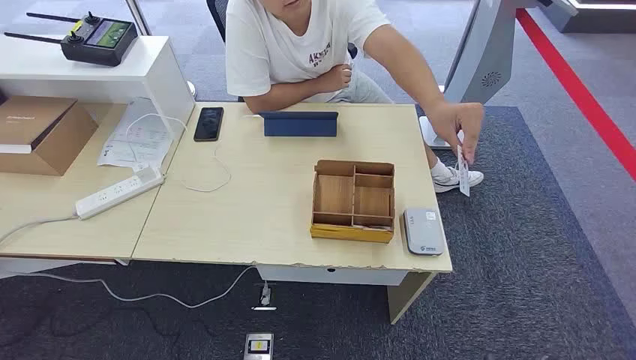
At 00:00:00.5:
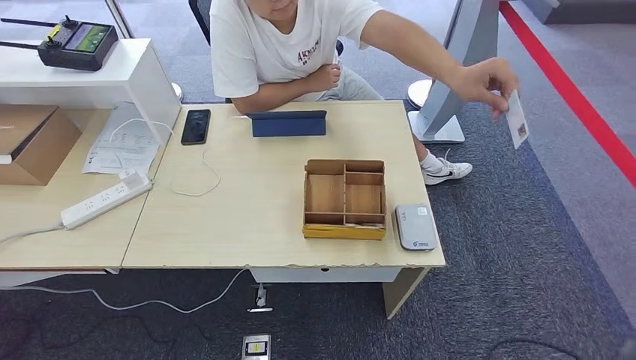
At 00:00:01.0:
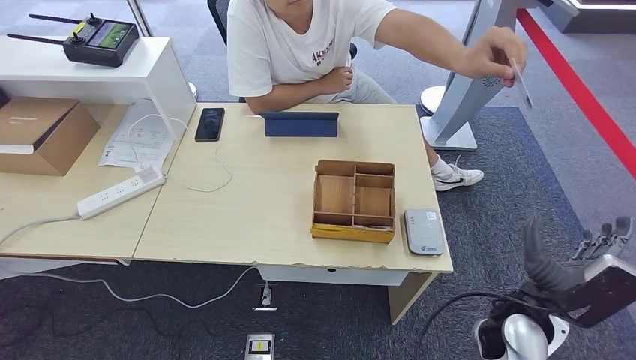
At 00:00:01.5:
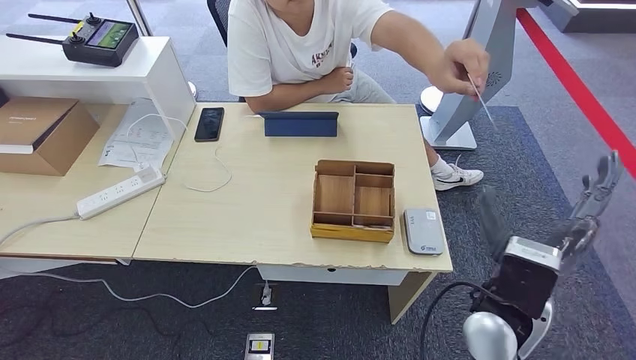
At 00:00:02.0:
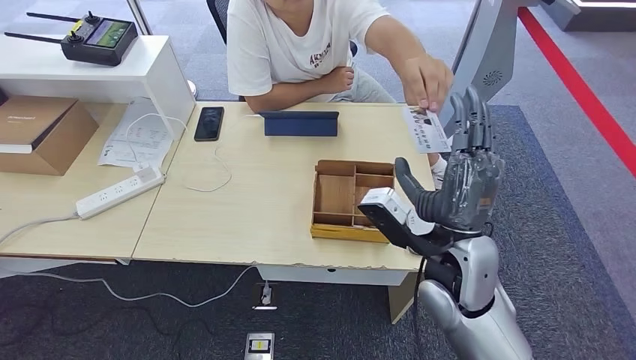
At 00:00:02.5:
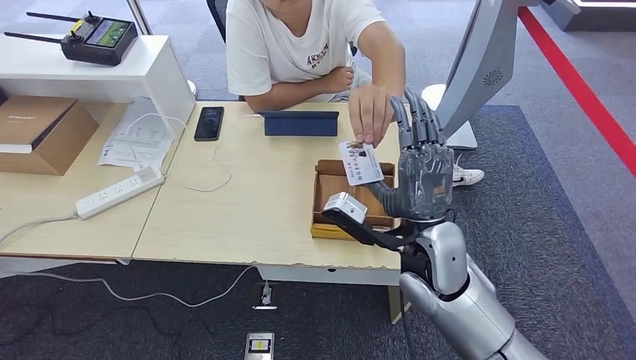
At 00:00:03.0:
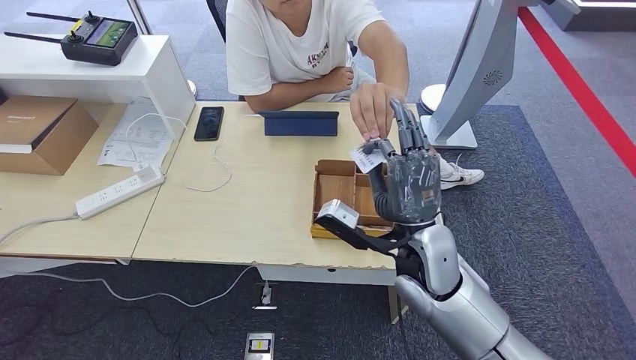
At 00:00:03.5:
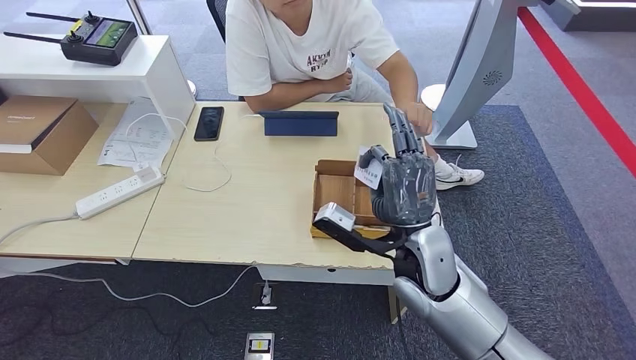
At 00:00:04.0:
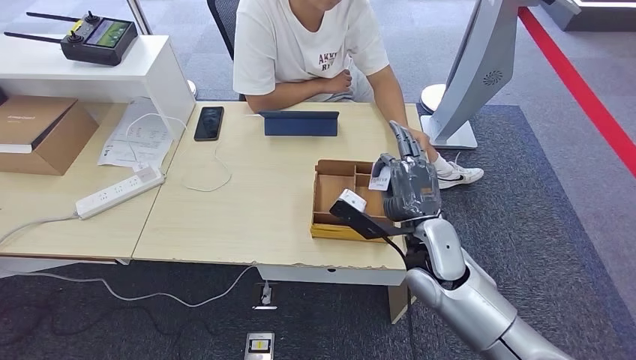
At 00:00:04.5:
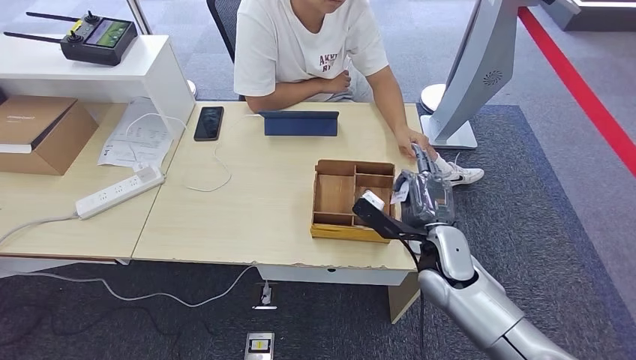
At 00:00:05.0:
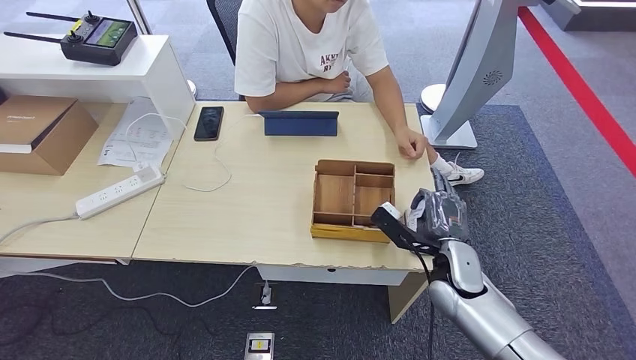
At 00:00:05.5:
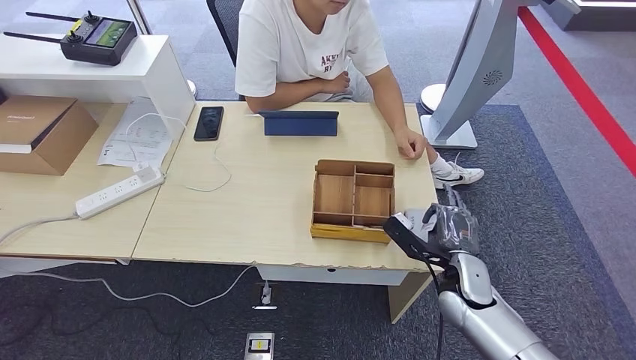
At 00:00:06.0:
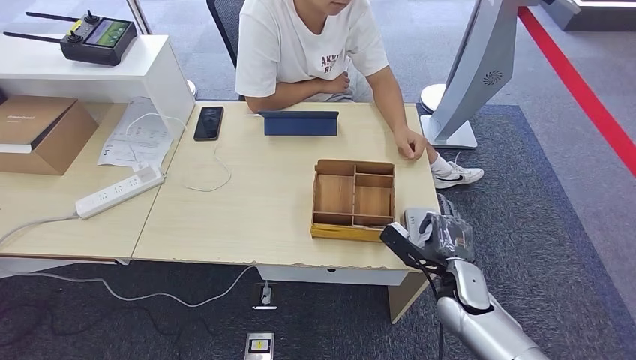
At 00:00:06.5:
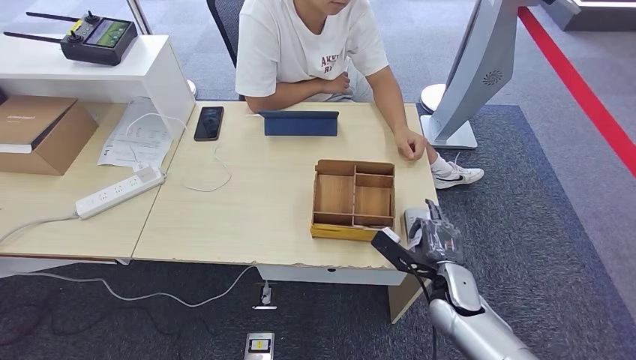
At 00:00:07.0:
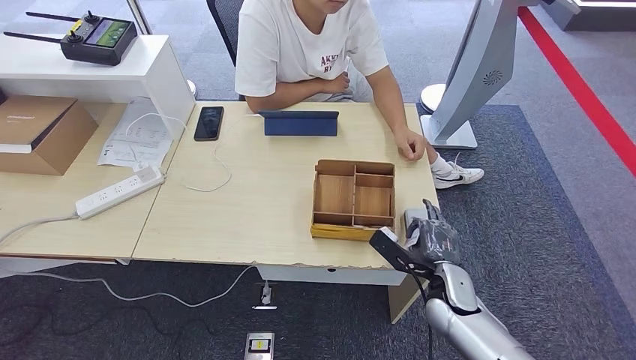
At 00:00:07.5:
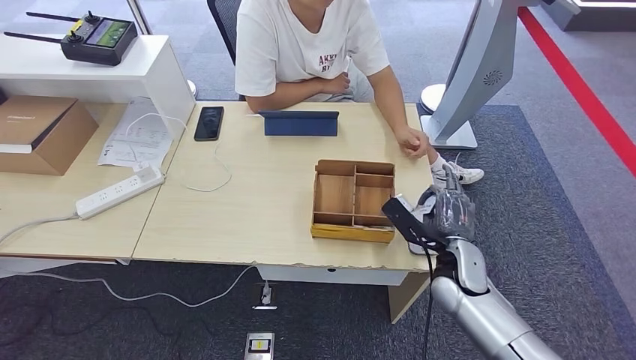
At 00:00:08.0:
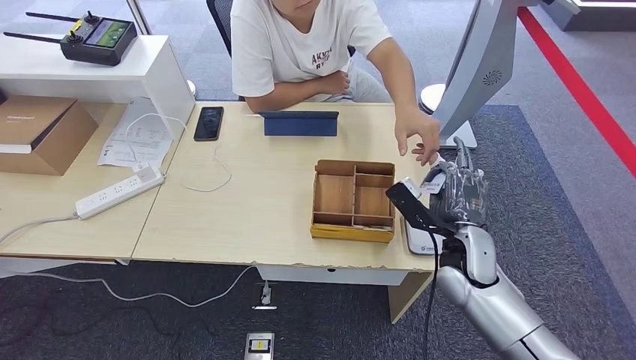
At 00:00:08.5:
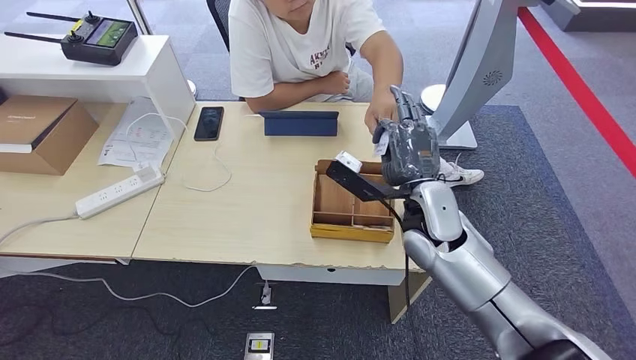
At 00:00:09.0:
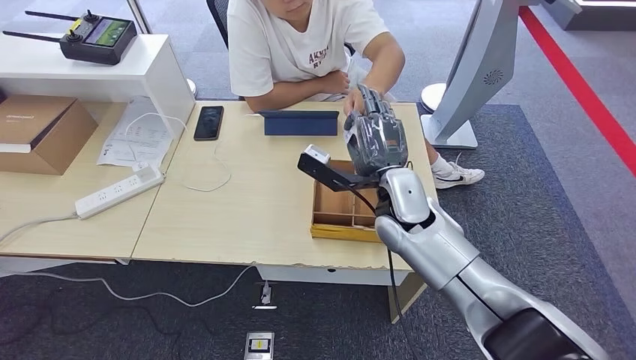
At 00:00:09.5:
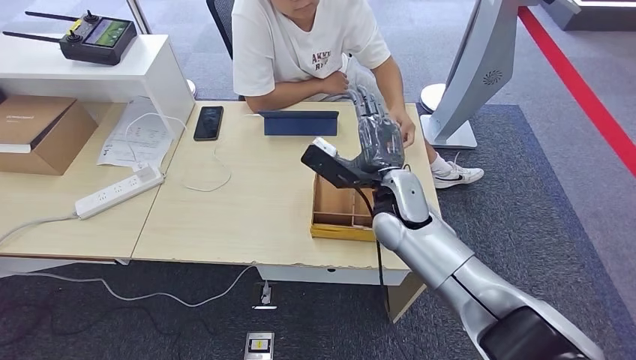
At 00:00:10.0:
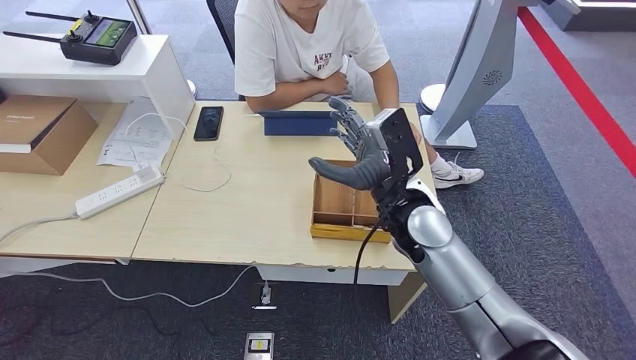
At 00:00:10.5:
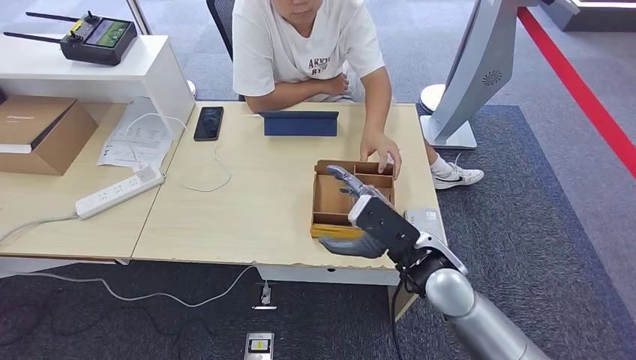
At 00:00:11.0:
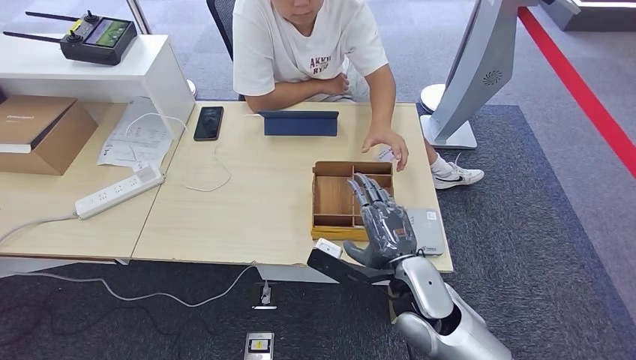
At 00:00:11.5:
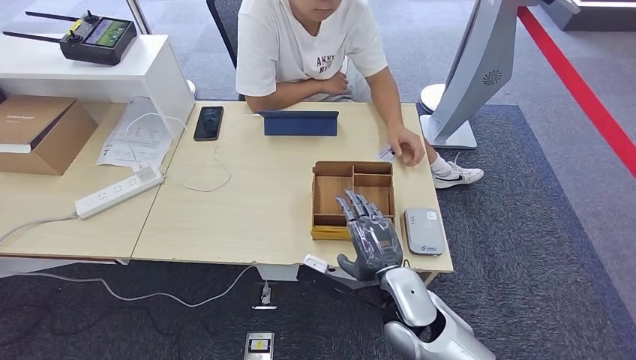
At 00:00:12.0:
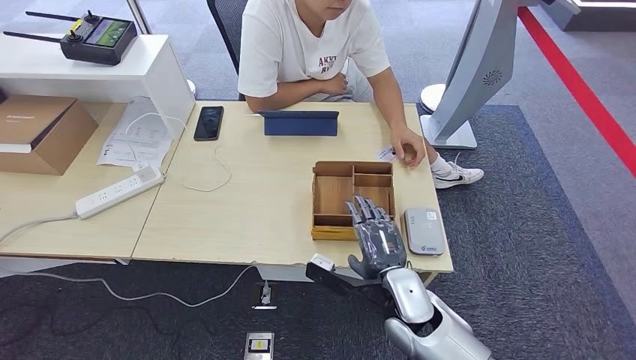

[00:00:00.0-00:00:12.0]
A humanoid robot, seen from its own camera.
Step, 00:00:00.0 to 00:00:03.5: Take the ID card from the person's hand.
Step, 00:00:04.0 to 00:00:06.5: Place the ID card on the card reader.
Step, 00:00:07.0 to 00:00:09.5: Hand the ID card to the person.
00:00:02.0 to 00:00:04.0: The right hand travels downward by approximately 5 cm.
00:00:04.0 to 00:00:06.0: The right hand moves downward and to the right, roughly 15 cm.
00:00:06.0 to 00:00:08.0: The right hand moves upward, about 10 cm.
00:00:08.0 to 00:00:10.0: The right hand travels to the left and upward by about 15 cm.
00:00:10.0 to 00:00:12.0: The right hand goes about 20 cm downward and backward.

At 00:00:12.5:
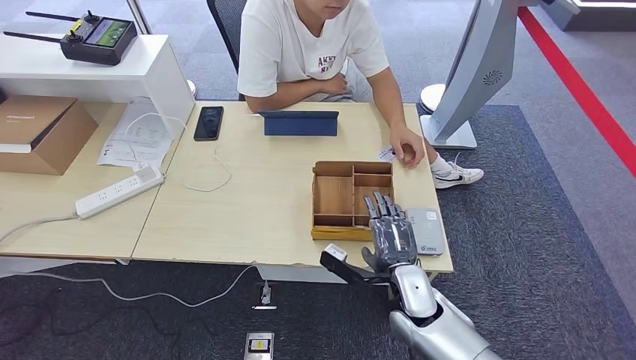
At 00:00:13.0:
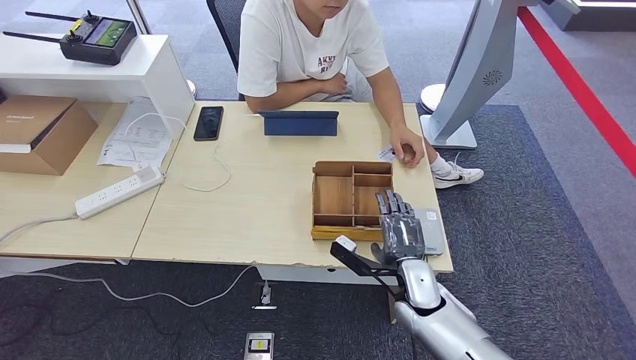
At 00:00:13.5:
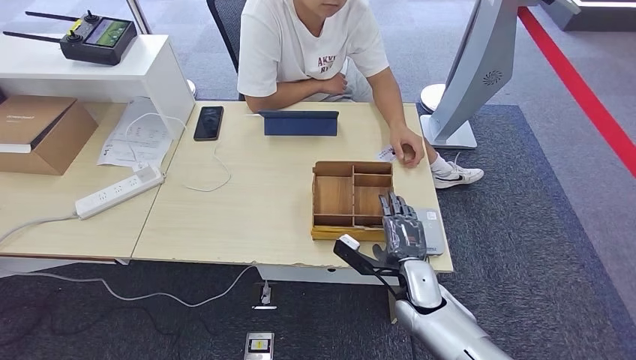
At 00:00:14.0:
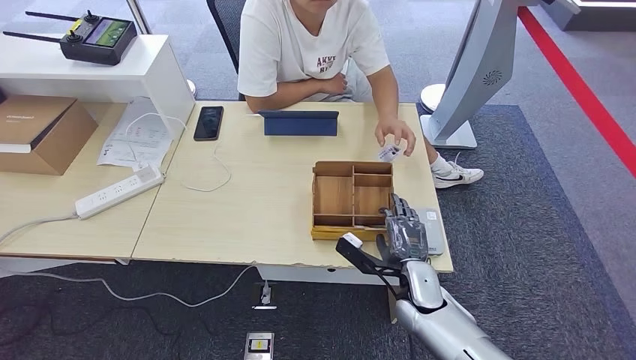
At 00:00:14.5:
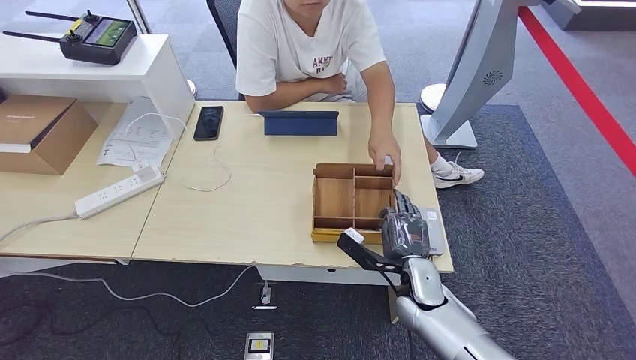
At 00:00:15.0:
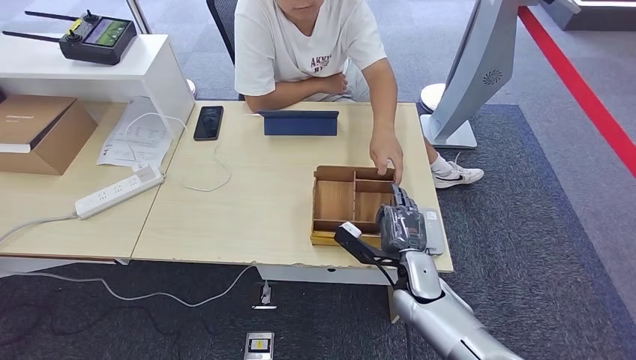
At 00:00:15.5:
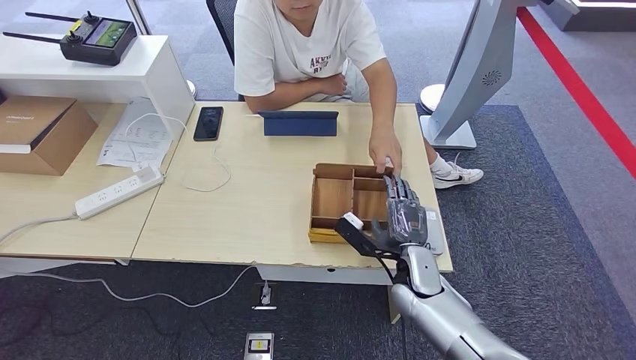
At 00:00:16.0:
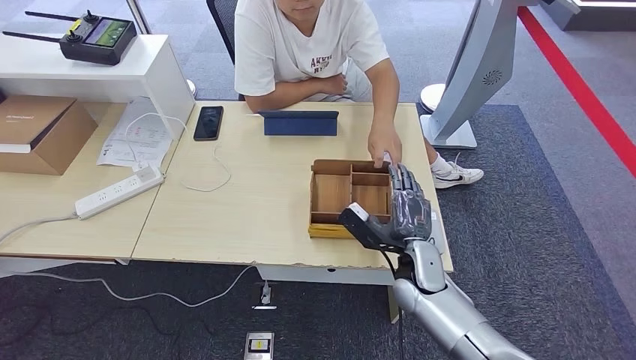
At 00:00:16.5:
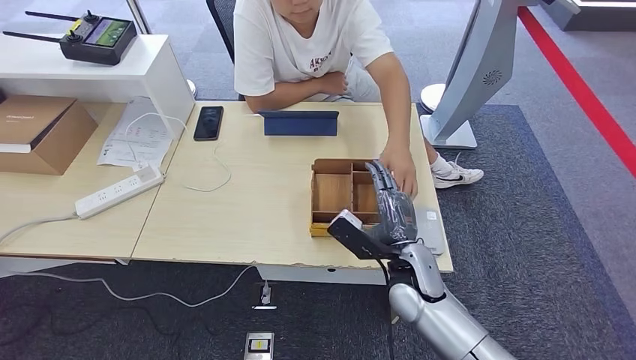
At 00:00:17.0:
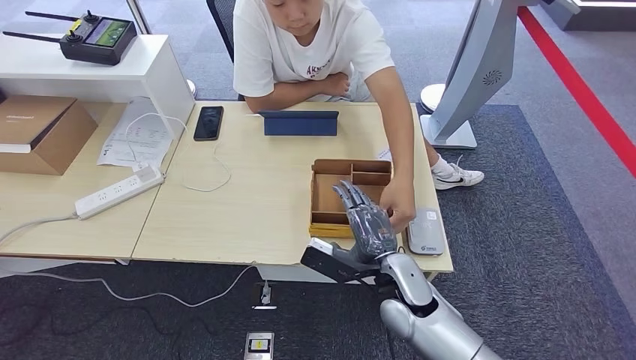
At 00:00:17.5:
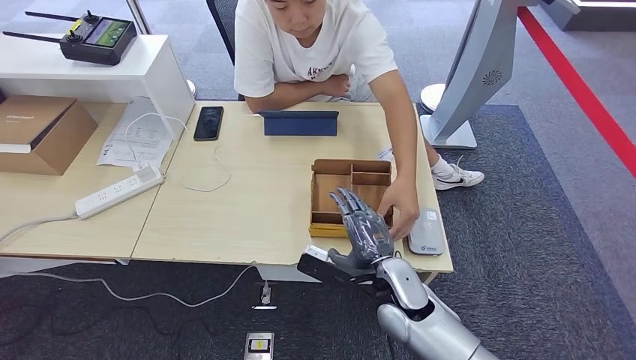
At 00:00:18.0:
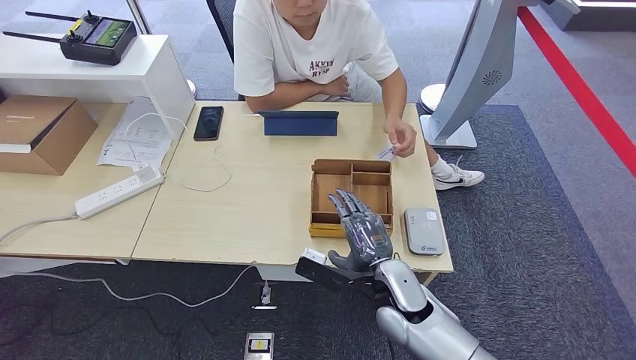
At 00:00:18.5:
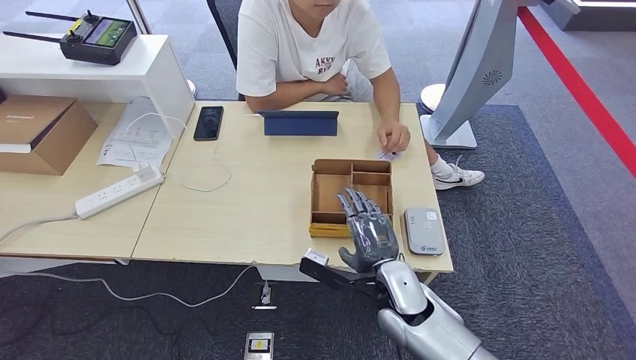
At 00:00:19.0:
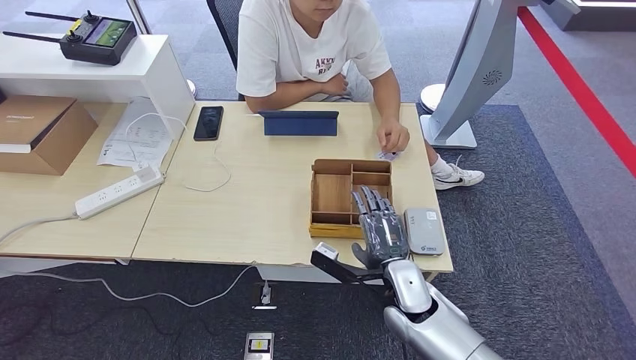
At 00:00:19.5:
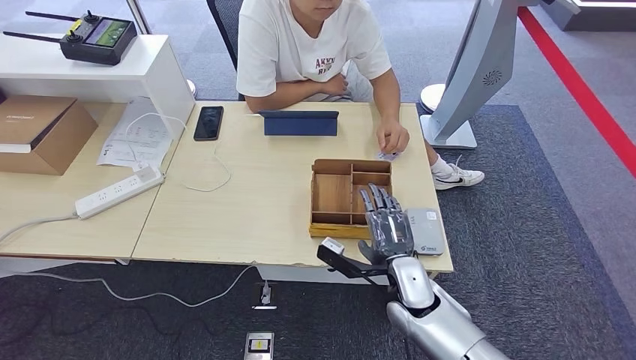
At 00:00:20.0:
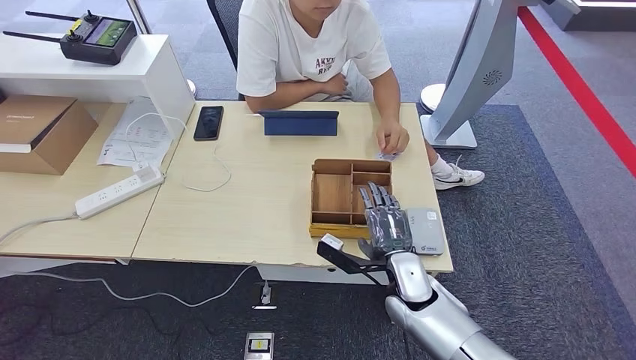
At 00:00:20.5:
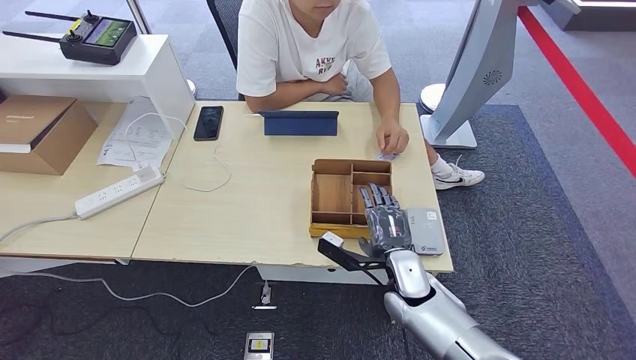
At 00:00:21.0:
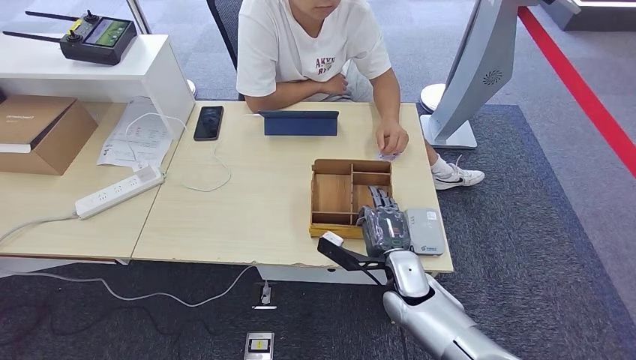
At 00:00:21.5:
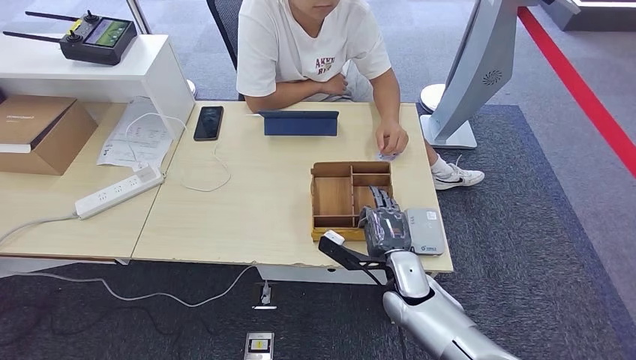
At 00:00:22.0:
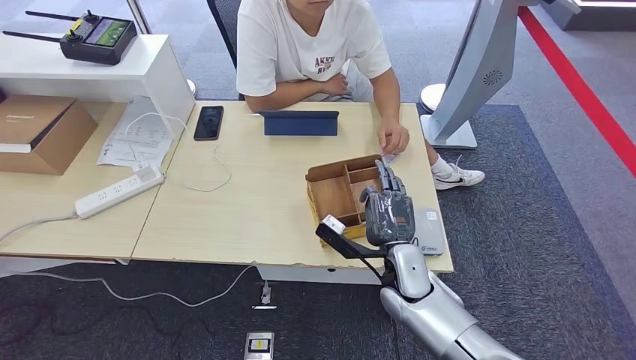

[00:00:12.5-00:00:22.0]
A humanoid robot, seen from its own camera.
00:00:12.5 to 00:00:14.5: The hands move only a little.
00:00:14.5 to 00:00:16.5: The right hand moves upward, some 5 cm.
00:00:18.0 to 00:00:20.0: The hands move only a little.
00:00:20.0 to 00:00:22.0: The hands stay close to where they were, moving slightly.
